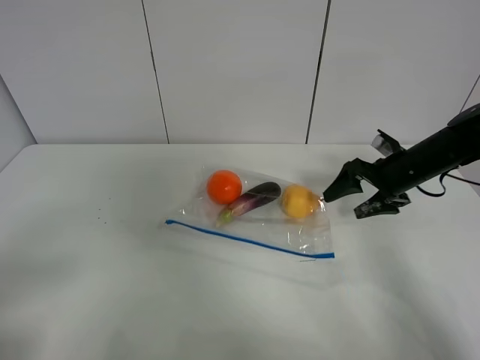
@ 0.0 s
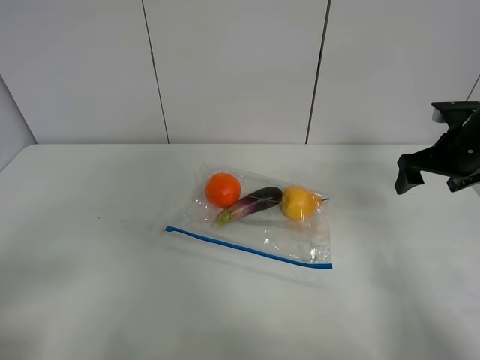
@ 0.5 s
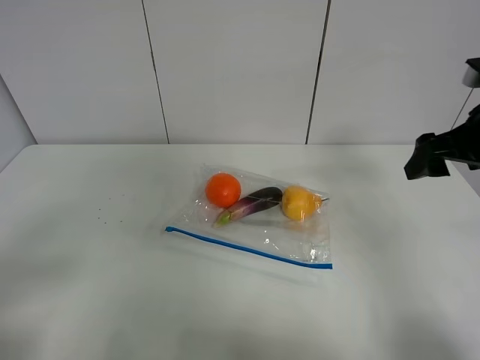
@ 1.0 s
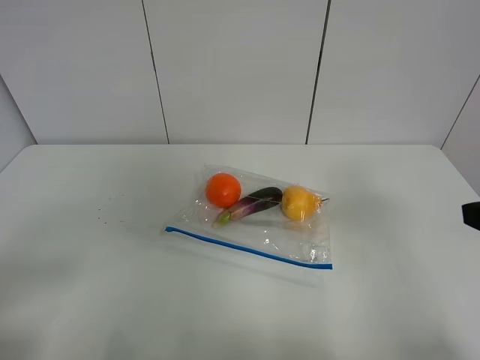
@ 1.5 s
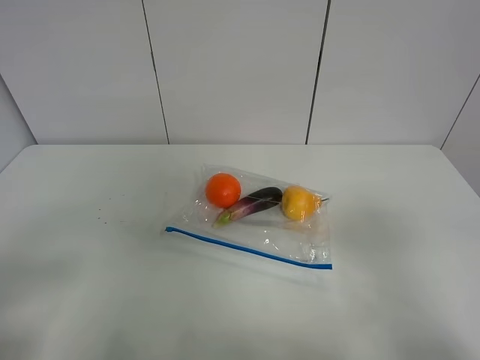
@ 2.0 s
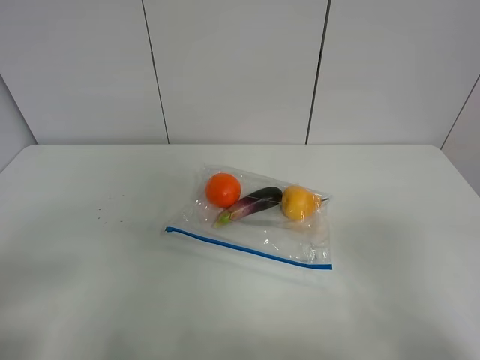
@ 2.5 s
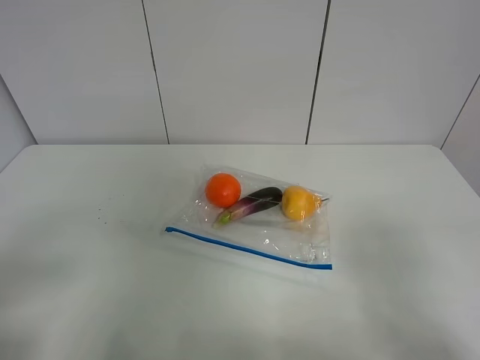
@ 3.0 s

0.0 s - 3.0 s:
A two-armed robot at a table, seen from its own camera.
0.0 s - 1.5 s: The right gripper travels backward and upward by roughly 30 cm.
1.5 s - 3.0 s: The right gripper is displaced backward by some 10 cm.
